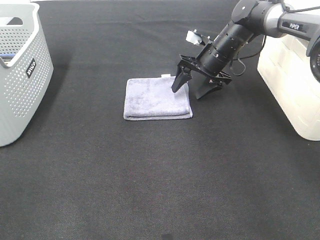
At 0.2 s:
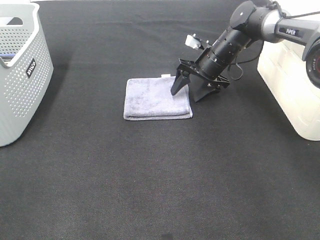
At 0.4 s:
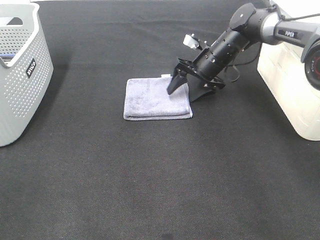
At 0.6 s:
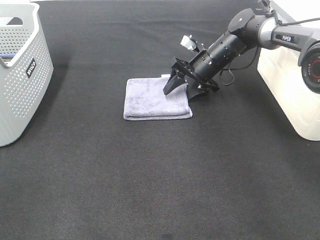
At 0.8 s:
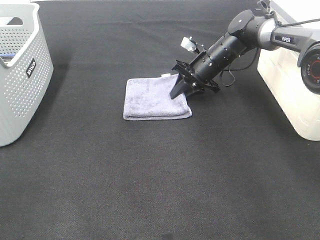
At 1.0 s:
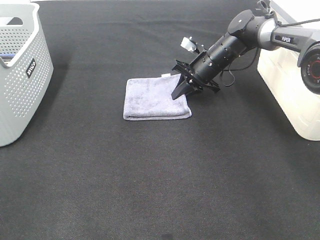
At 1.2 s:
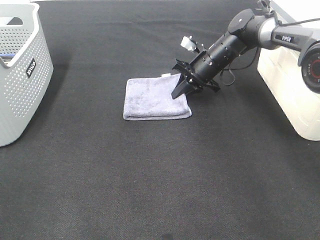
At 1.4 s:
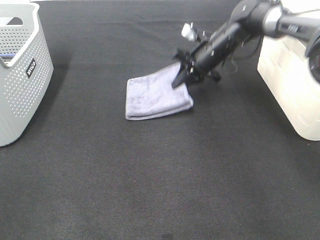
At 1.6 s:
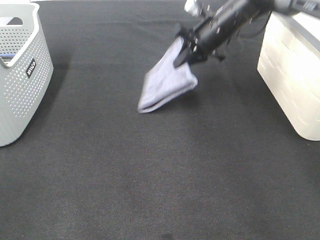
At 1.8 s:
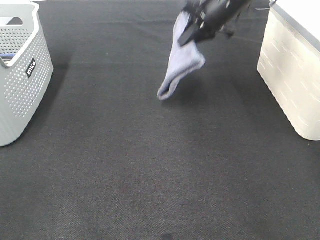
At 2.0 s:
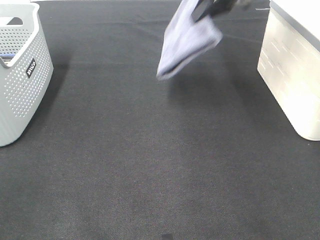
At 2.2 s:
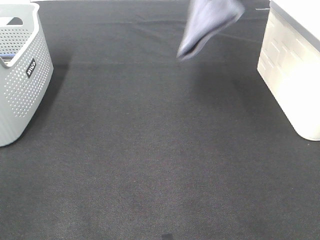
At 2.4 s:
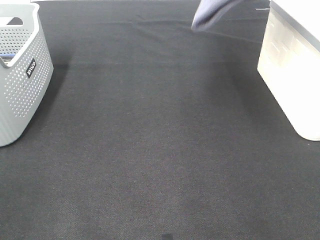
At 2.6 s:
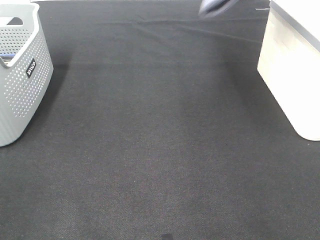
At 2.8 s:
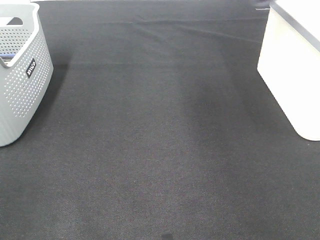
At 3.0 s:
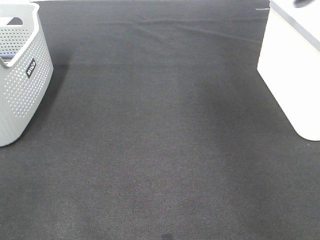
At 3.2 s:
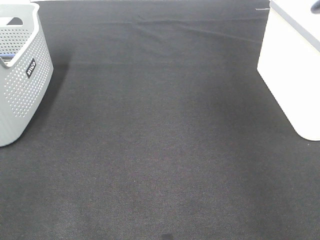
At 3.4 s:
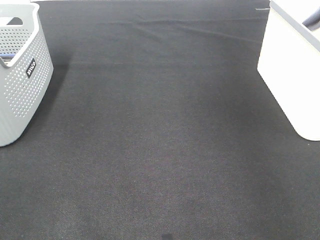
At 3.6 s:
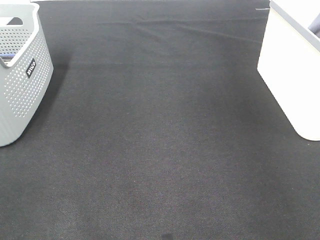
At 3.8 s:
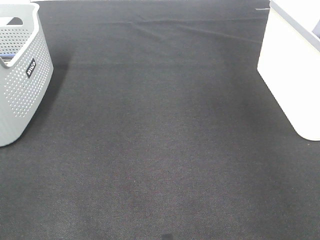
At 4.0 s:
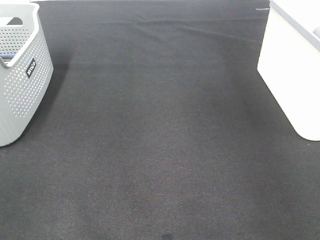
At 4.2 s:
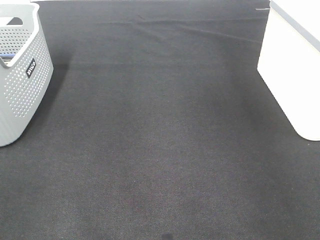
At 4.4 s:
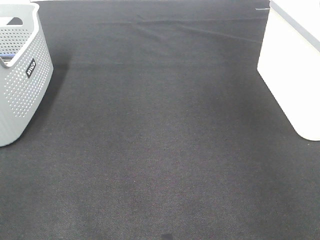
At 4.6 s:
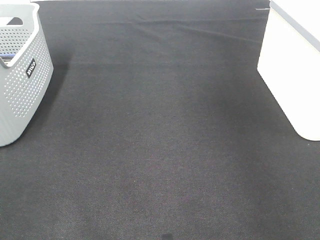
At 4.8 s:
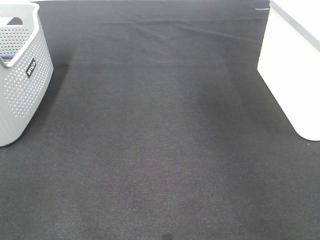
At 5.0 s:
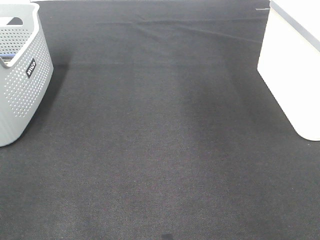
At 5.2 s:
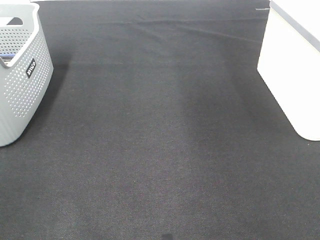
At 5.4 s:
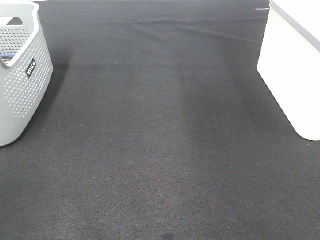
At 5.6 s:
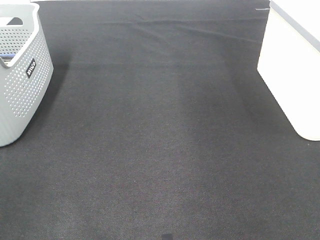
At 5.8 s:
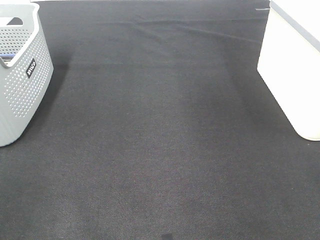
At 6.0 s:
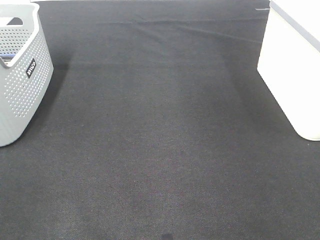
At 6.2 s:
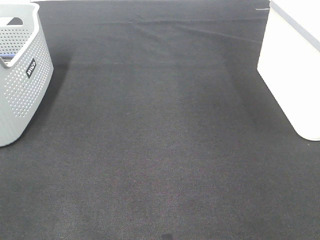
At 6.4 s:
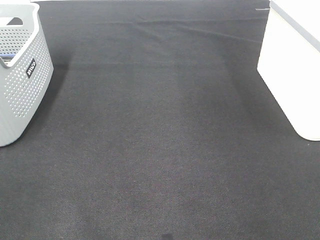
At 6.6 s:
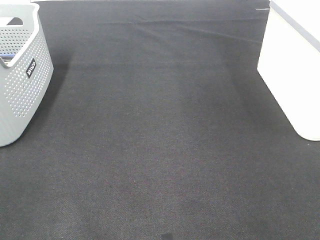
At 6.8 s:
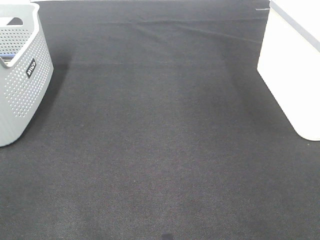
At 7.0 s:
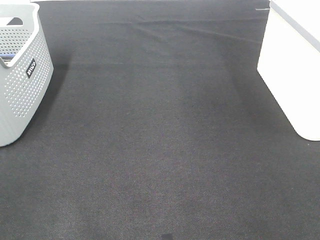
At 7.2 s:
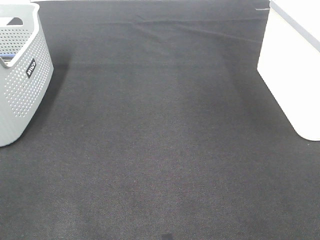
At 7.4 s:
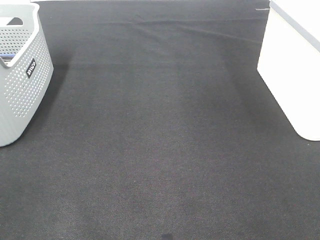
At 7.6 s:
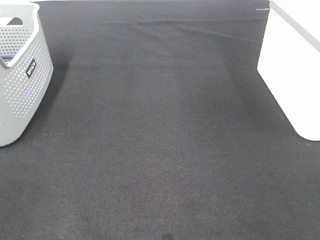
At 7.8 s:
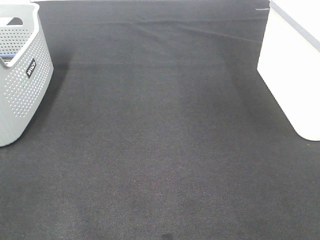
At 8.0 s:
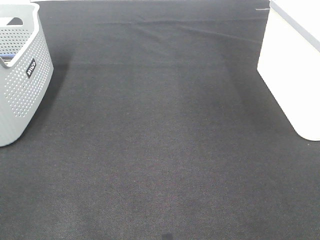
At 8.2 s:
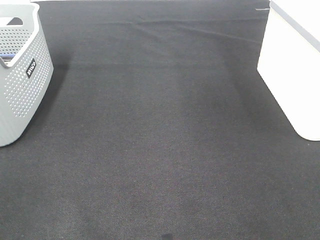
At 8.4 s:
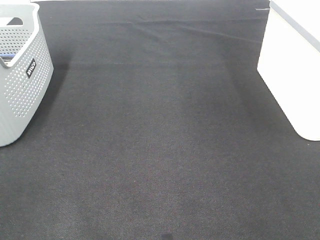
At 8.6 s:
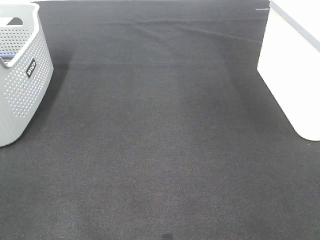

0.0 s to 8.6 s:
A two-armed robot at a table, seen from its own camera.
Step, 1.0 to 4.2 s: Right hand: place the grey towel in right basket.
0.0 to 1.4 s: The right gripper closes.
1.4 to 2.8 s: The right gripper shifts some 35 cm upward and to the right.
7.2 to 8.6 s: The two grippers keep their place.

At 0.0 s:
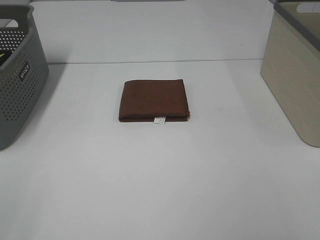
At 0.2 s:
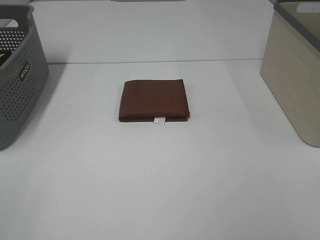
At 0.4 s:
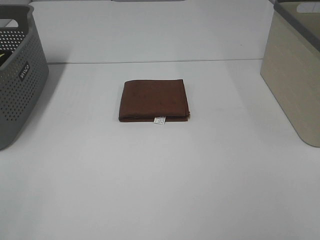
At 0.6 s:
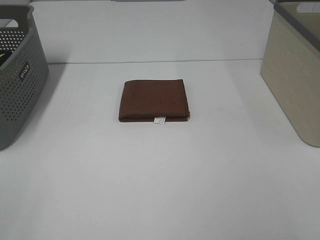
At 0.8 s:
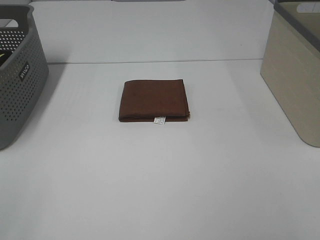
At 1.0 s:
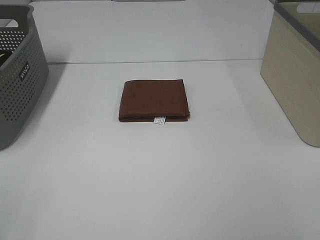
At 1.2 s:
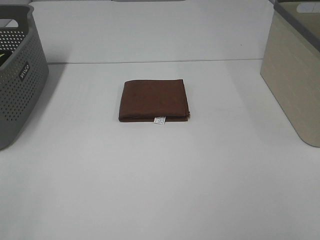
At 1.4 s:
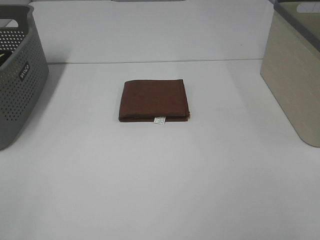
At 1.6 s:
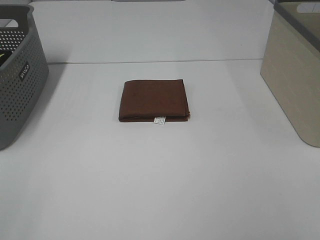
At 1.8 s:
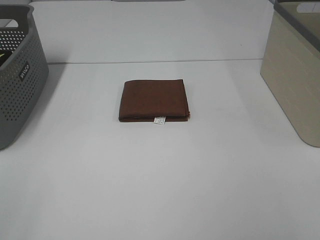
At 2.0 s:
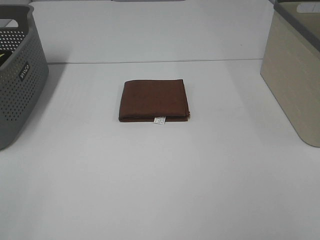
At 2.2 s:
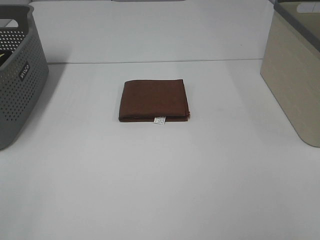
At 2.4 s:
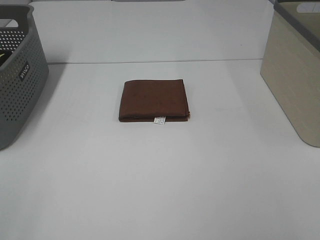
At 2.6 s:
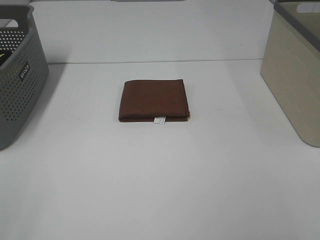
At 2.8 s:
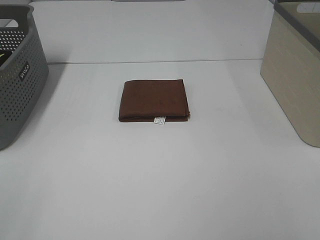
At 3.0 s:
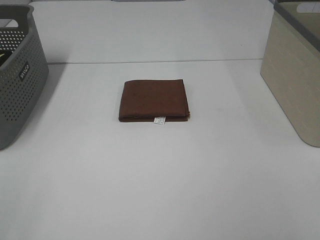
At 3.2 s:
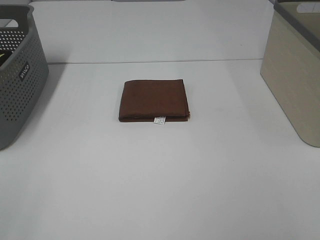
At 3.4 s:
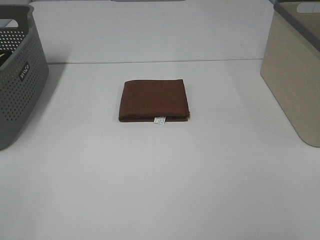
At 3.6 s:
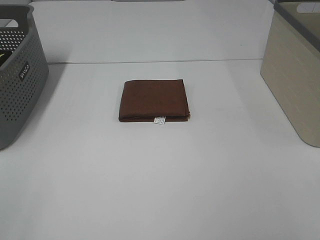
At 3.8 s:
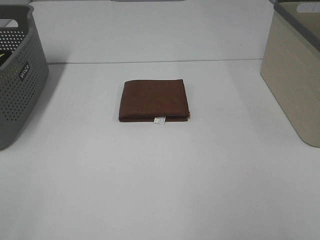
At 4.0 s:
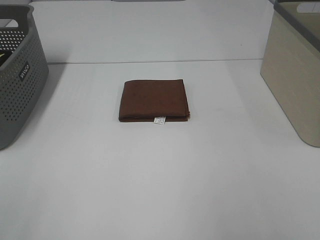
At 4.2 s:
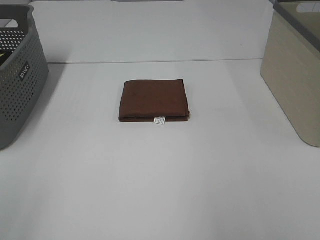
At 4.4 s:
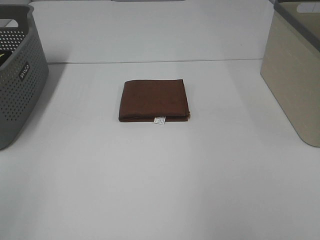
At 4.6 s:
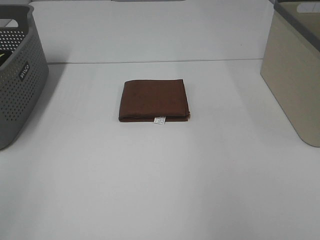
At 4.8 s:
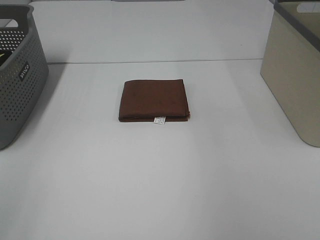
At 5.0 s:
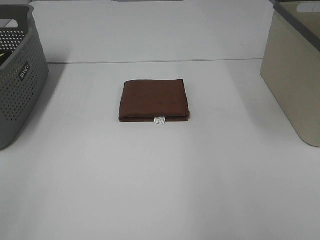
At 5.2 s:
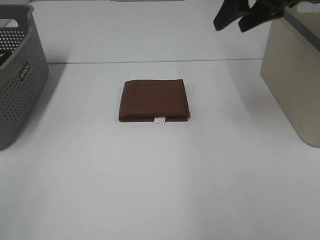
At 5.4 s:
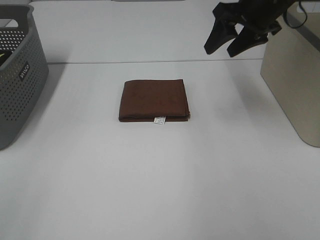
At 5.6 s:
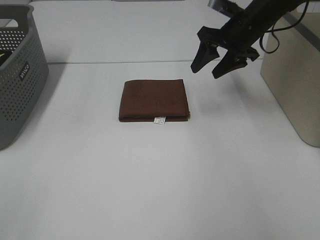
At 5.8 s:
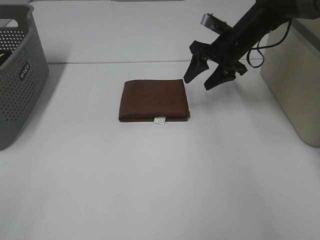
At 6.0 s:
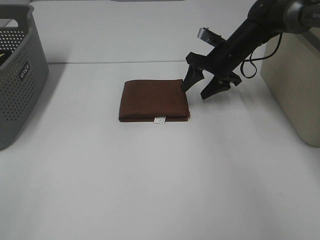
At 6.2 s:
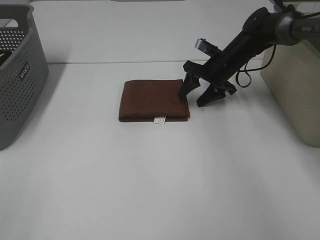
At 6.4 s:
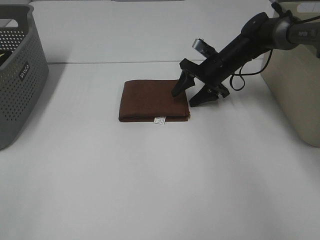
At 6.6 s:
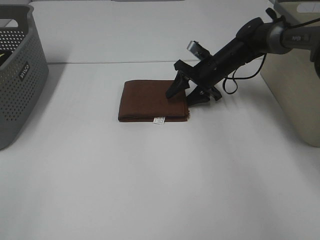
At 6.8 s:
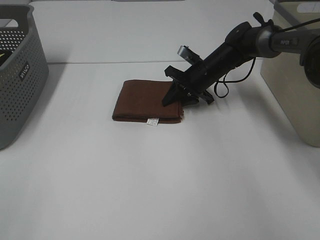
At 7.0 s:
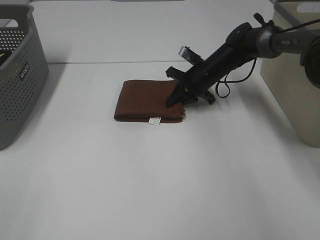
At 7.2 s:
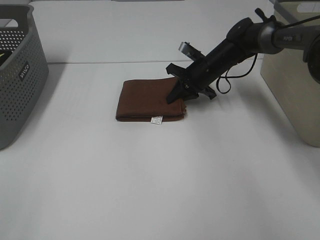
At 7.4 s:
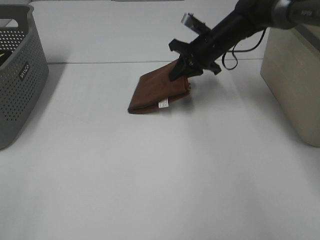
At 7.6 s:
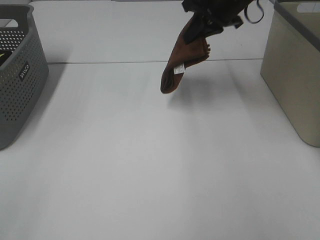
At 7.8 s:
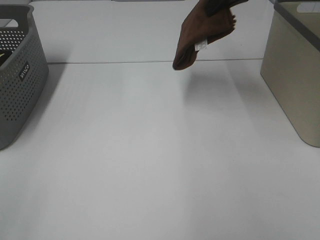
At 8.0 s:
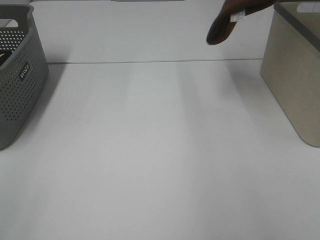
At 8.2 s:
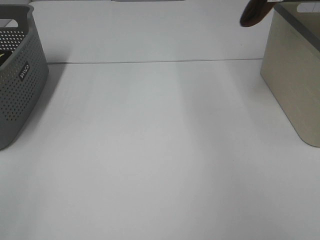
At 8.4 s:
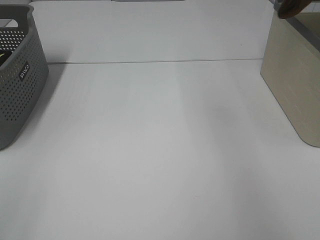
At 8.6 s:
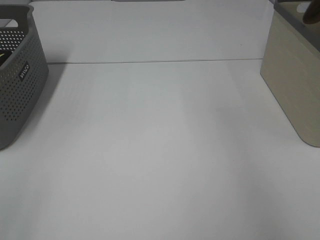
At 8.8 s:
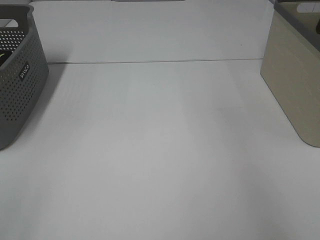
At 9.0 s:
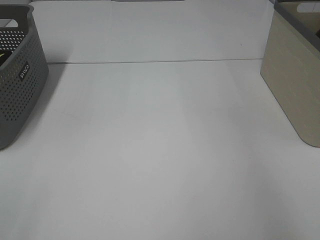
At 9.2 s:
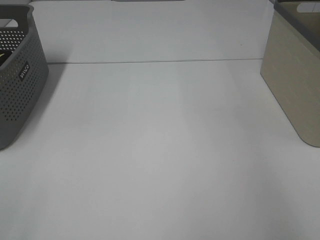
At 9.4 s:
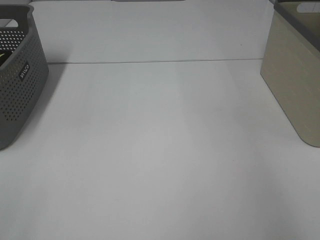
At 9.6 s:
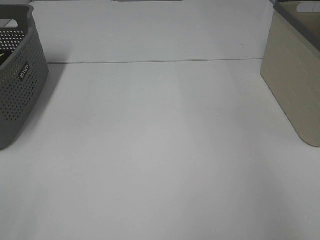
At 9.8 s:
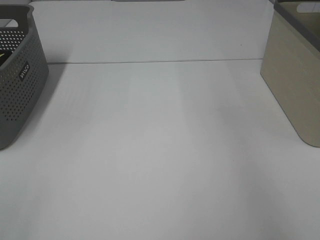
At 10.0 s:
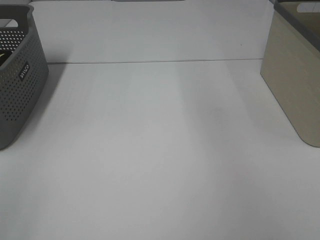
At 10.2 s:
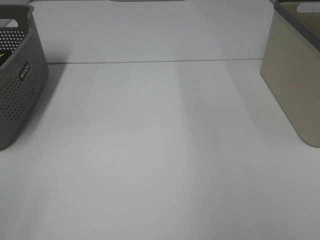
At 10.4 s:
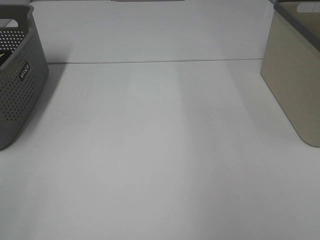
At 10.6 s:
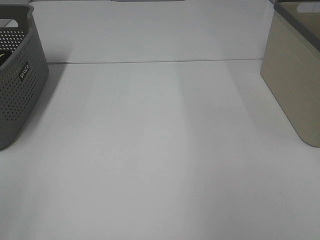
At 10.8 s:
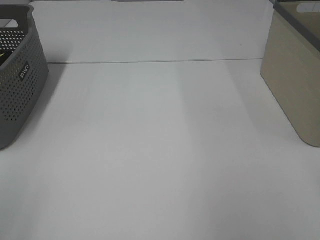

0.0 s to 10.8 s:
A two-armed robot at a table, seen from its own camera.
Step, 0.0 to 7.0 s: Right hand: grab the folded brown towel.
Step, 7.2 to 9.4 s: Right hand: place the brown towel in right basket.
0.0 to 3.0 s: Both grippers stay put.
4.6 to 6.2 s: The right gripper travels downward and forward by about 40 cm.
6.2 to 7.8 s: The right gripper heads upward, covering roughly 25 cm, and closes up.
7.8 to 9.2 s: The right gripper shifts about 20 cm to the right, and opens its fingers.

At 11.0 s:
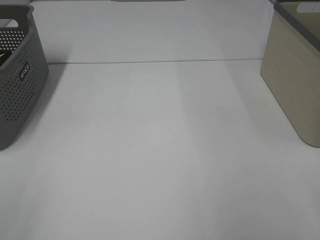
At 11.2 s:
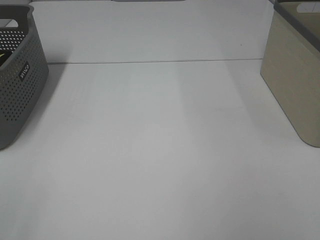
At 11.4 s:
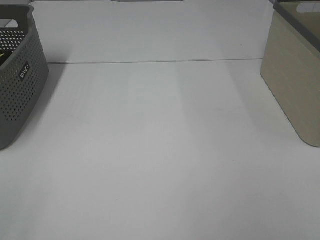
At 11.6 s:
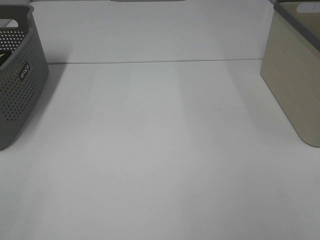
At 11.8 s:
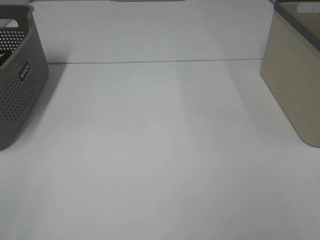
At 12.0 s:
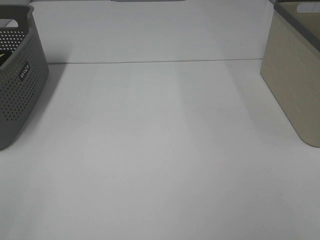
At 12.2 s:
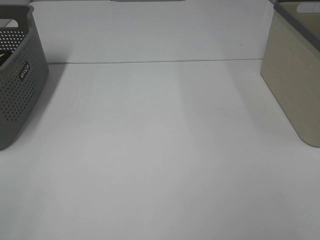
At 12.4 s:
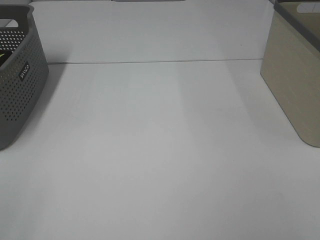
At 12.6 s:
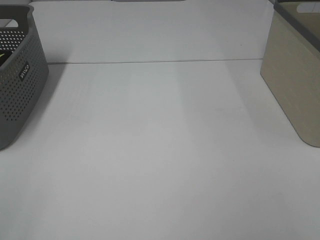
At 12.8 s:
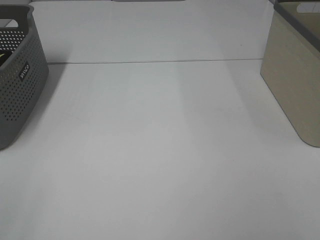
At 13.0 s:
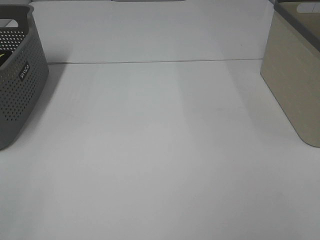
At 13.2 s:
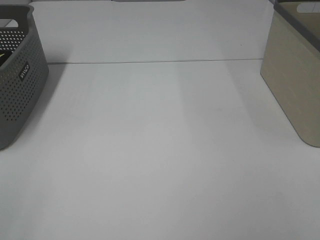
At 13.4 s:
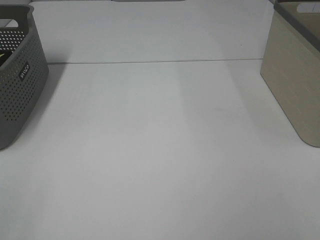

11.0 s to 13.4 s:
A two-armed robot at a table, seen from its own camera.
12.2 to 13.4 s: Both grippers stay about where they are.
